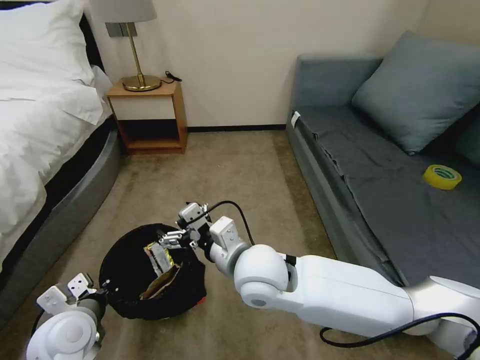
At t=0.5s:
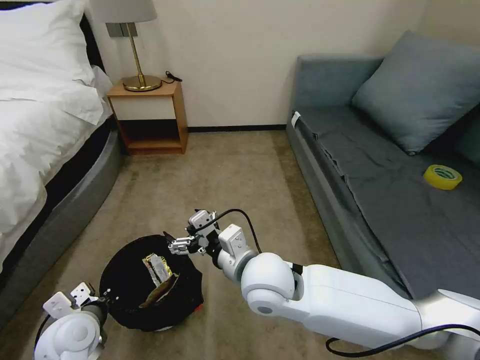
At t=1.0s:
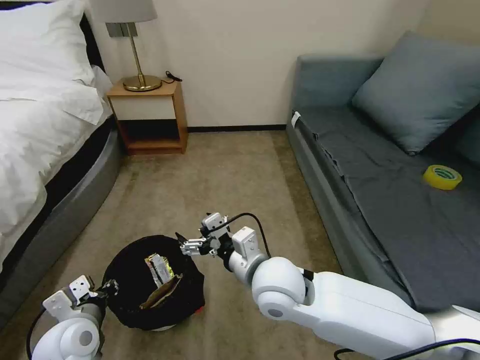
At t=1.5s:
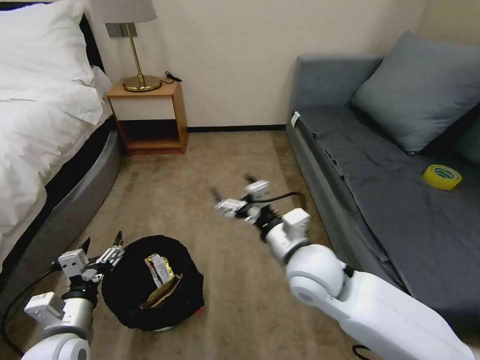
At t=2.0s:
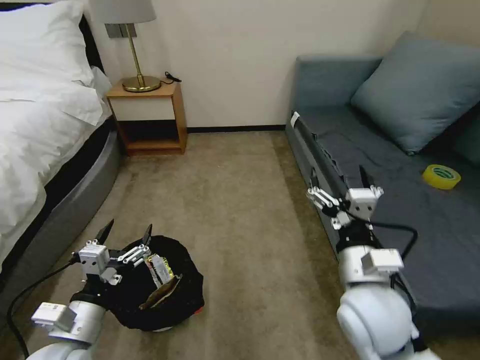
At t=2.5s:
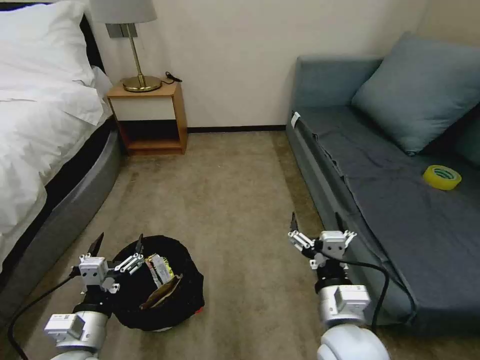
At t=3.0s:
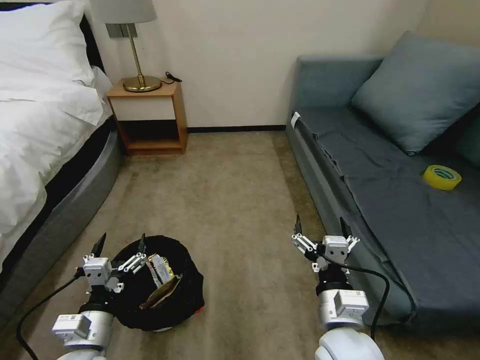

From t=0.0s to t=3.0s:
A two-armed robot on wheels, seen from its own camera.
Task of the whole recording: Pick up the trash bin, then pick up the garbage on the floor and place it into the trash bin.
From t=0.0s to t=1.5s: The left gripper opens; the right gripper is displaced to the right by some 10 cm.
From t=1.5s to t=3.0s: The right gripper shifts approximately 15 cm backward and downward.

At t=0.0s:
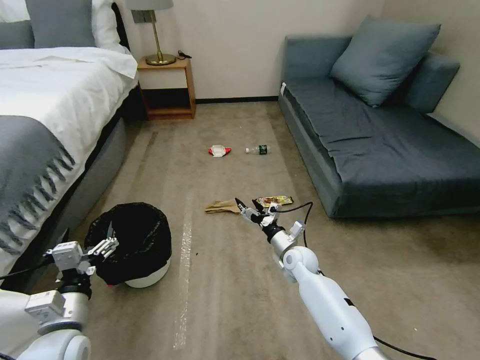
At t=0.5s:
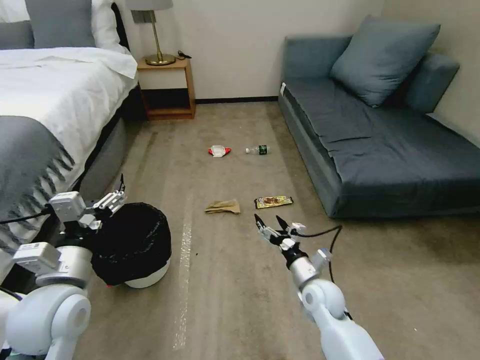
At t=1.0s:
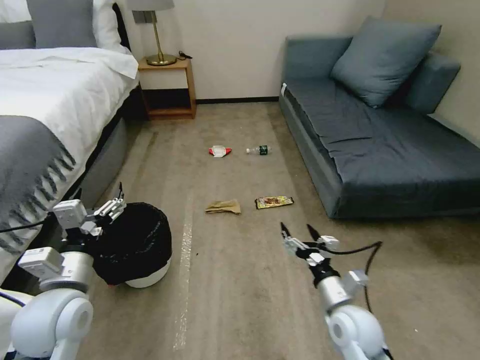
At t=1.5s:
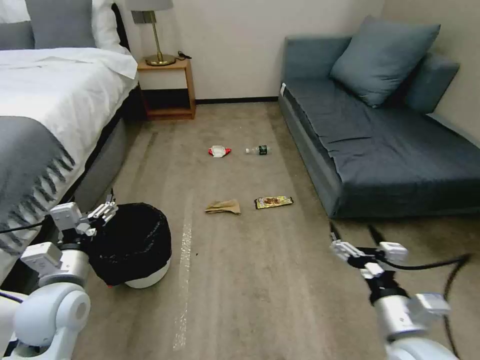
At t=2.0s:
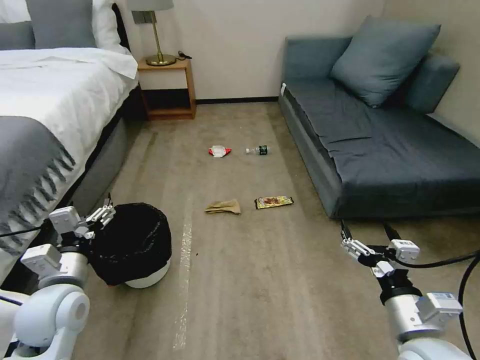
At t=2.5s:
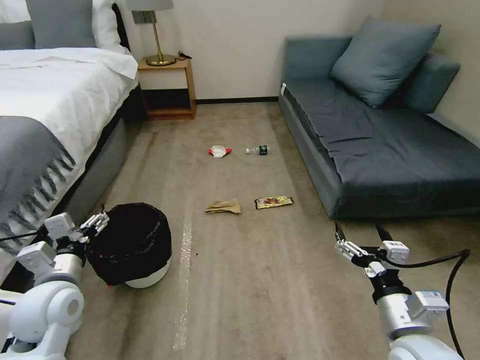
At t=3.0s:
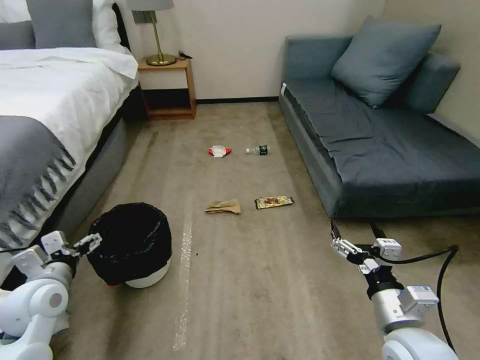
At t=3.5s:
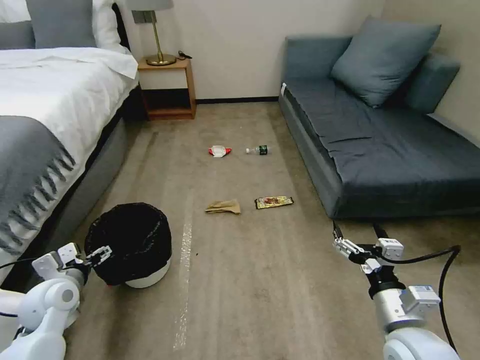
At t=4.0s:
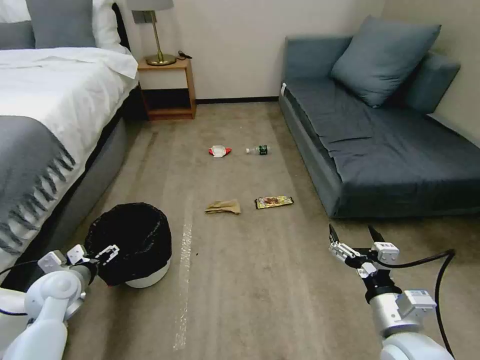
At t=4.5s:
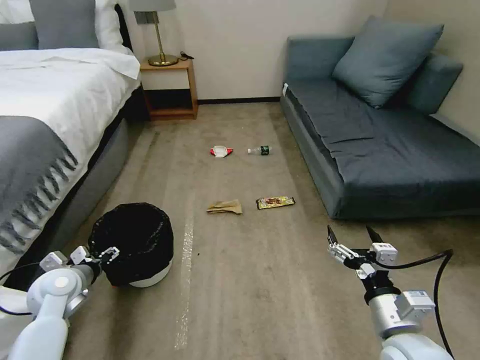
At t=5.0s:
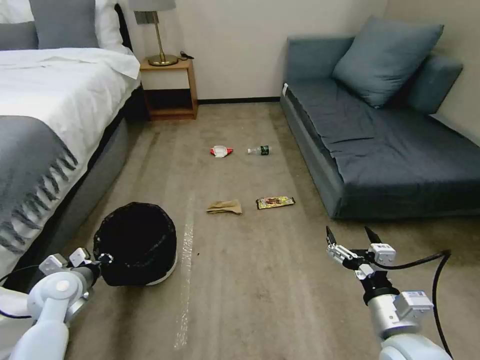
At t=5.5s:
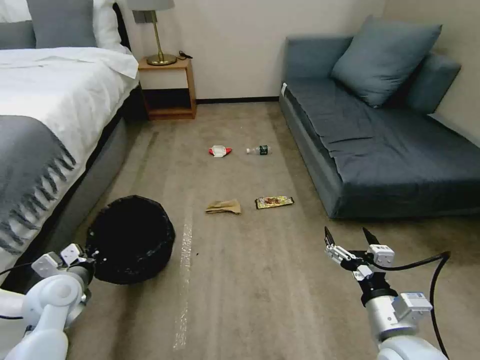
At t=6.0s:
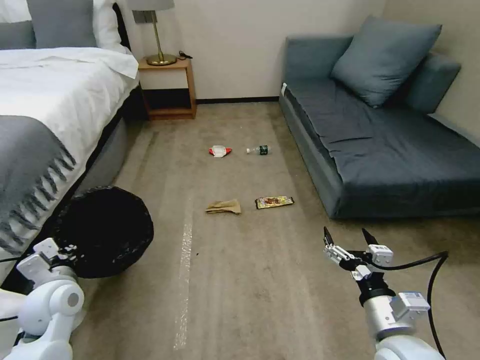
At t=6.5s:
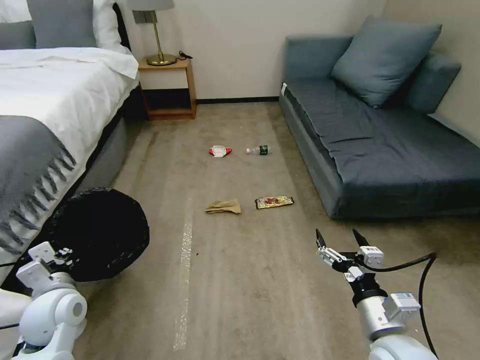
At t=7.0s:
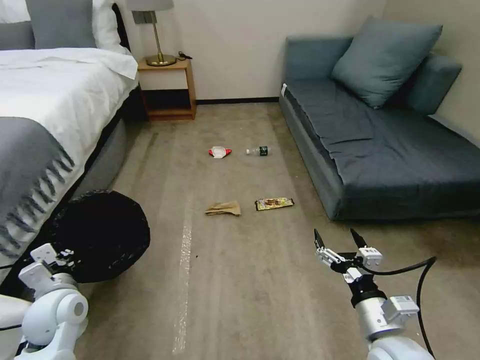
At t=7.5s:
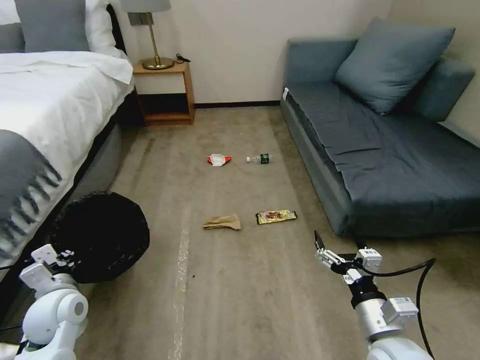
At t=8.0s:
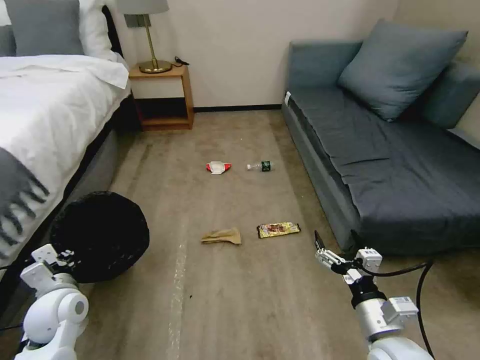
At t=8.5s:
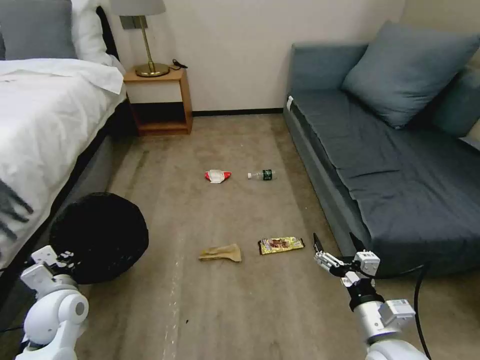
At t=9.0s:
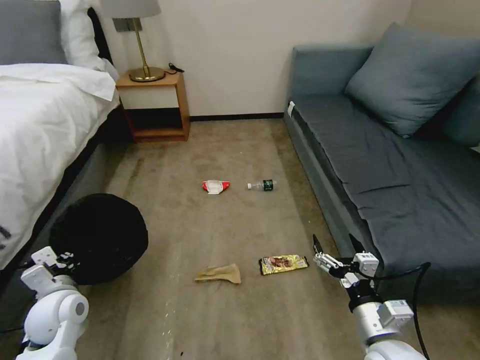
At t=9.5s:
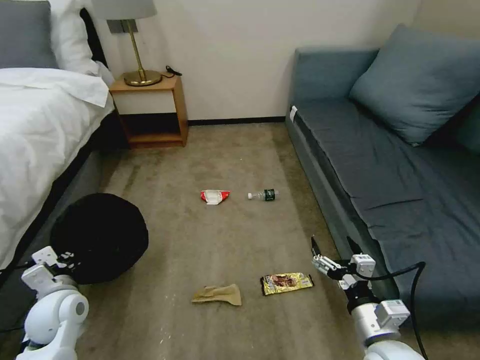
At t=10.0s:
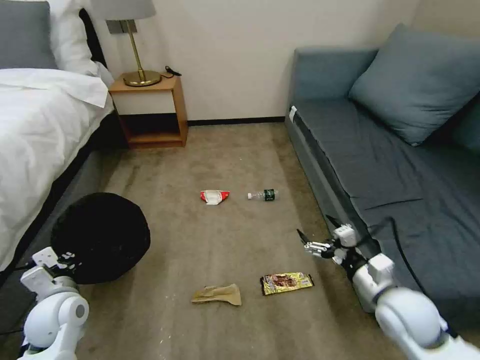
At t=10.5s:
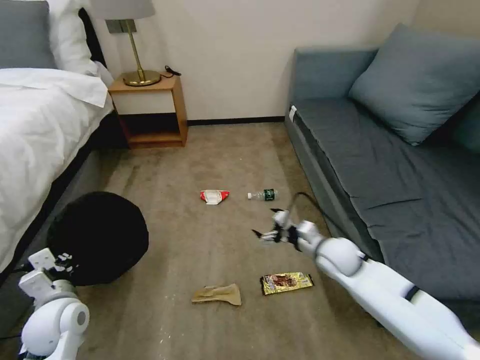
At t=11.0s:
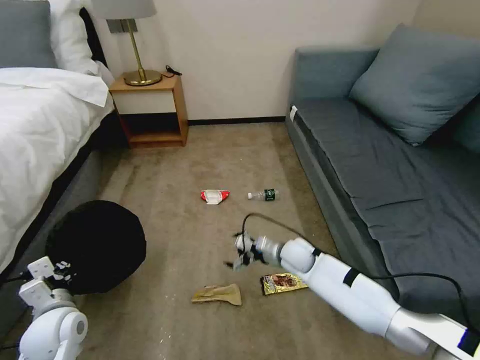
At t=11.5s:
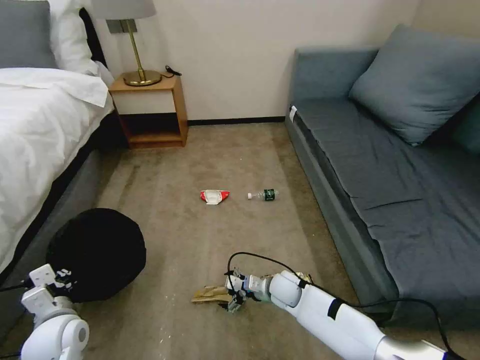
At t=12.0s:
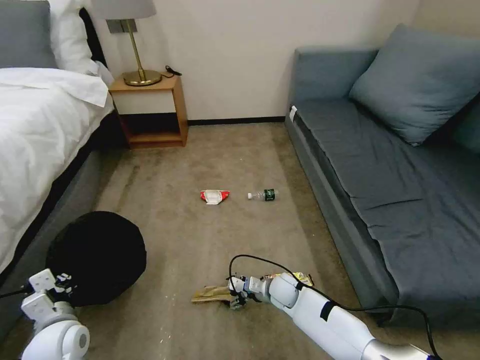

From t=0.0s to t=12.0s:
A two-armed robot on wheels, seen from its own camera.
Task of the whole recording: Pick up the trash bin, then pick up the garbage on the floor and place it into the trash bin.
From t=2.0s to t=4.0s: The left gripper goes approximately 15 cm to the left, downward and forward.
From t=4.0s to t=6.0s: The left gripper changes place by approximately 5 cm, and closes.
From t=8.0s to t=10.0s: The right gripper travels forward by about 5 cm.
From t=10.0s to t=12.0s: The left gripper shifts by about 5 cm. The right gripper moves downward, to the left and forward, approximately 30 cm.

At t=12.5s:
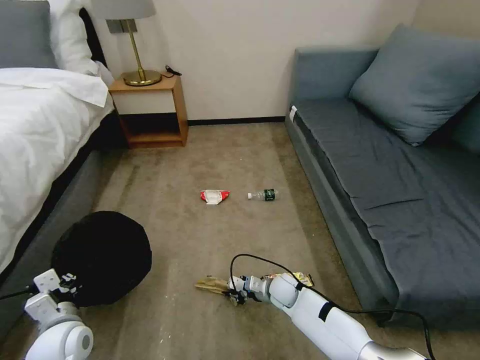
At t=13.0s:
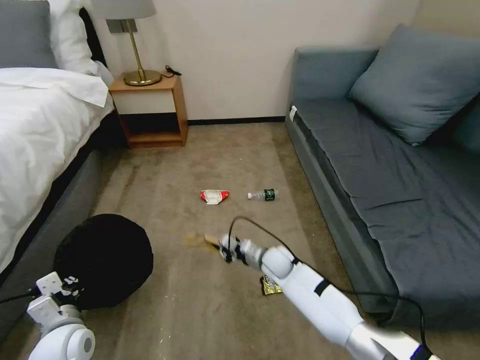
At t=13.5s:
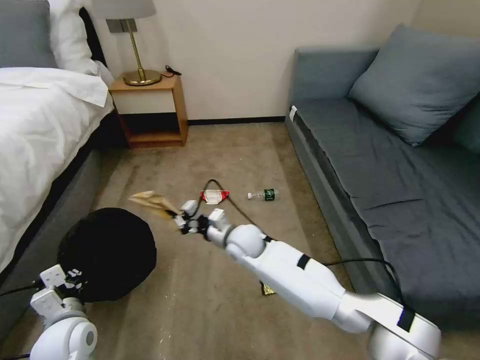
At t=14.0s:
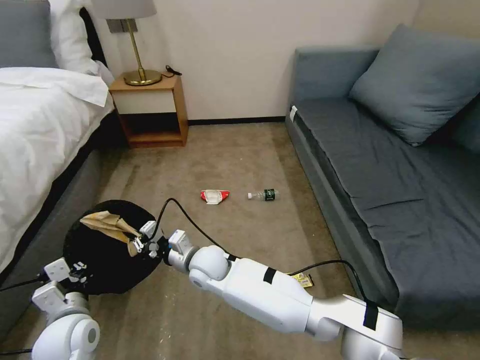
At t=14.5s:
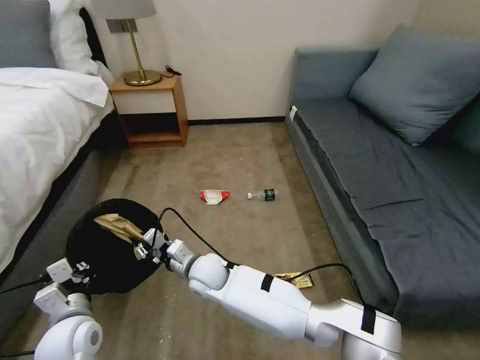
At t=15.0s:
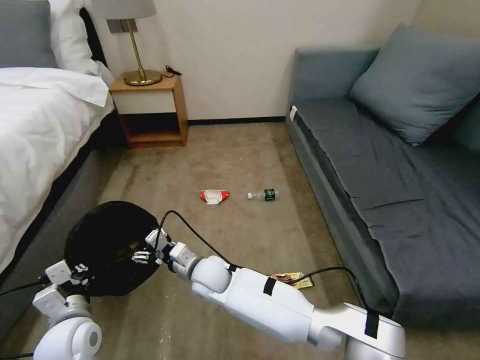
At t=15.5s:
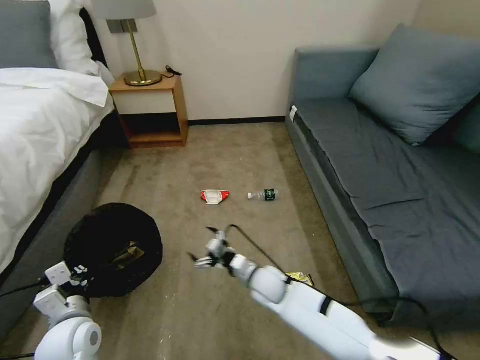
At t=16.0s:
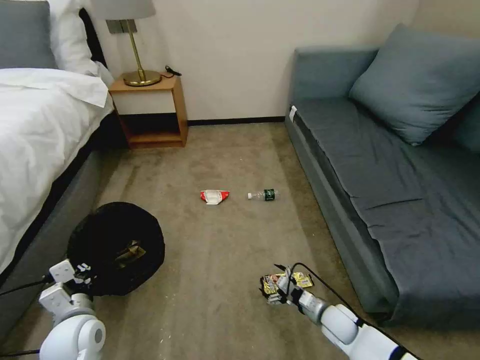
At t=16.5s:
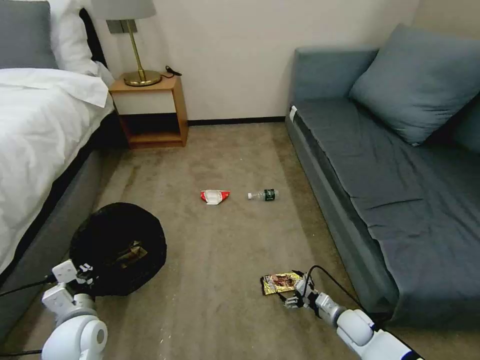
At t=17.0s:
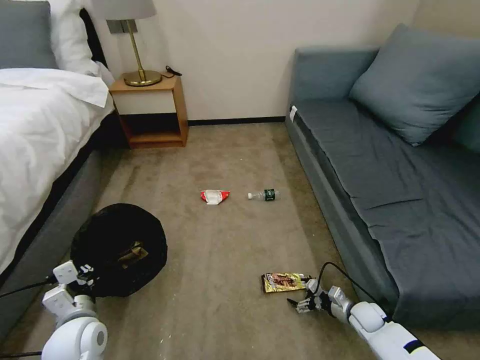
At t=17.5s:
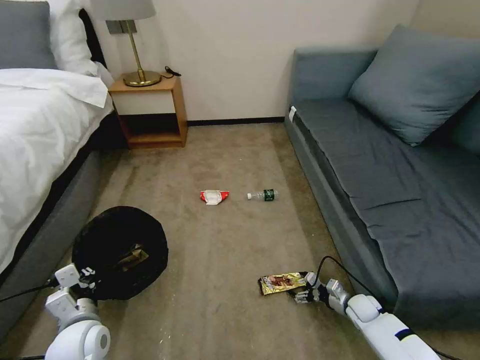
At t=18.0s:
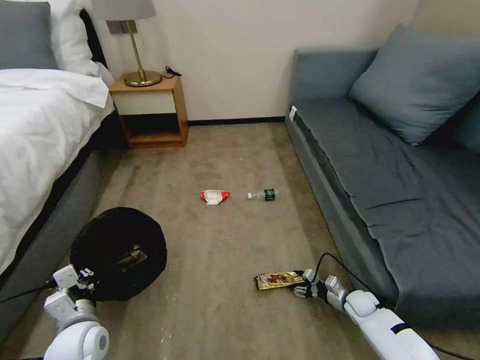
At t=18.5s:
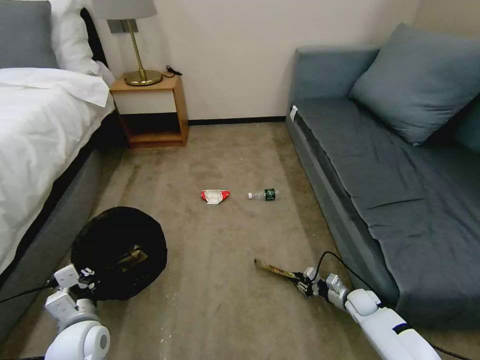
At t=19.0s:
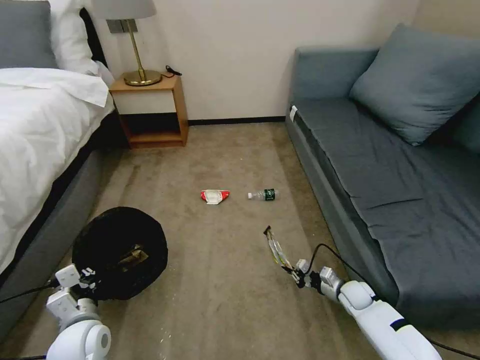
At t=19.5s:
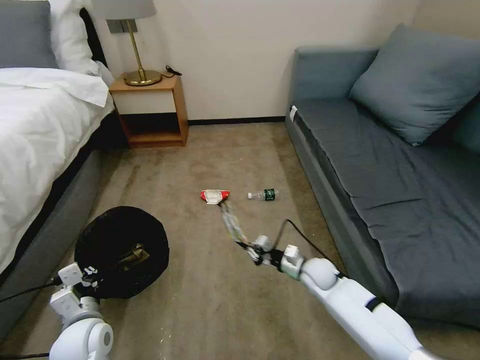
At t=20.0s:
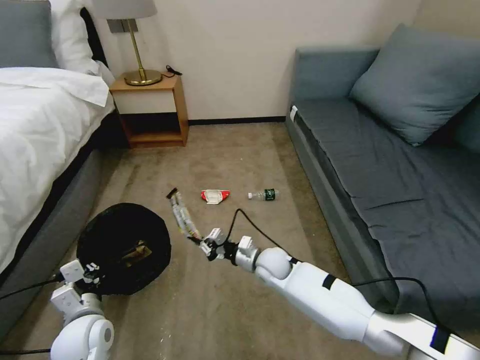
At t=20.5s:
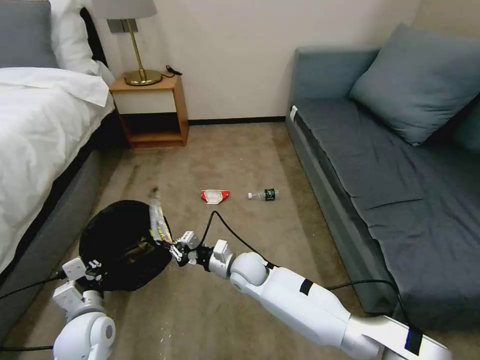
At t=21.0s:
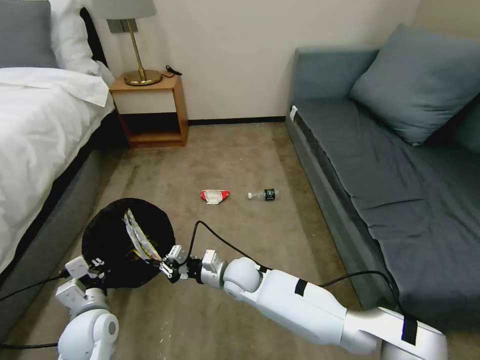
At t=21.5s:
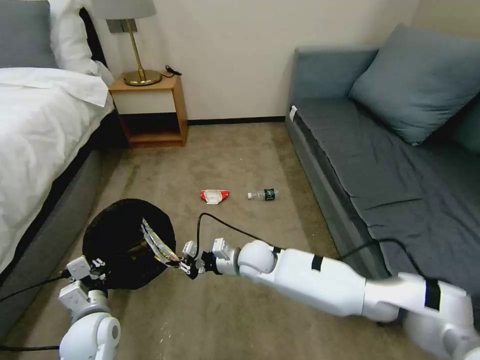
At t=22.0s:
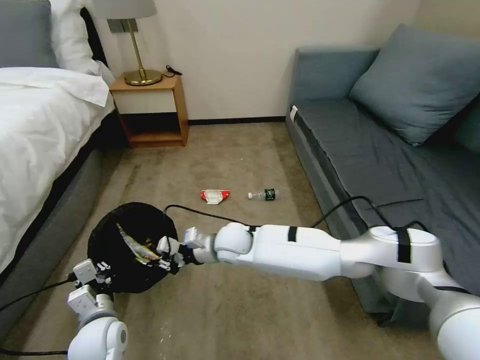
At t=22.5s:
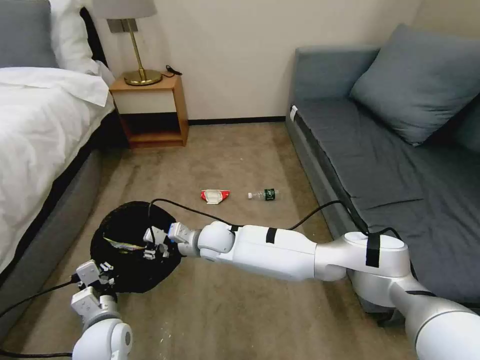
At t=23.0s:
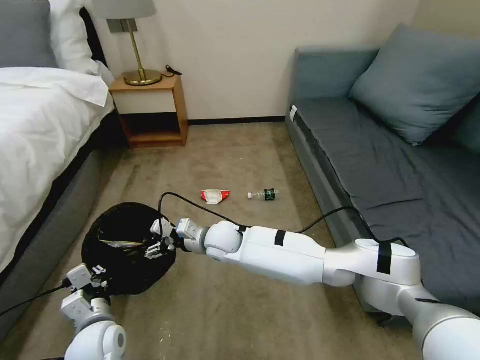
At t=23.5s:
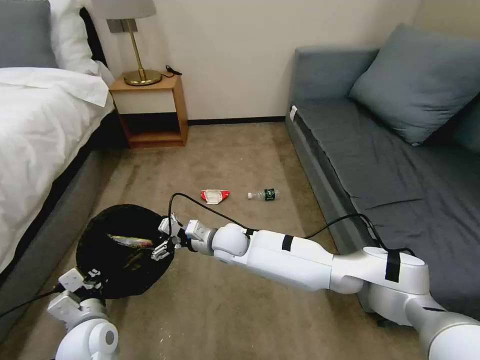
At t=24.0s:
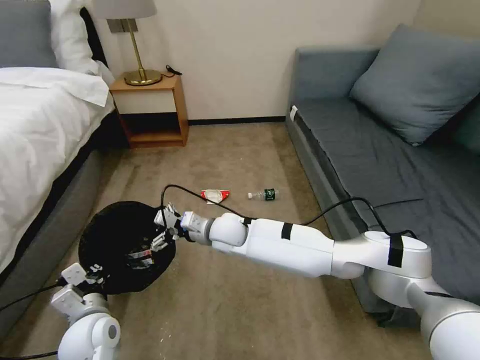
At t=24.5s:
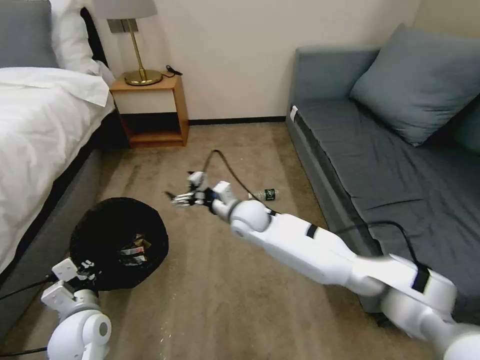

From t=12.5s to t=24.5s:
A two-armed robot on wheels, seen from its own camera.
Task of the whole recording: Pick up the trash bin, then pick up the garbage on the floor and place it into the trash bin.
From t=12.5s to t=14.5s: The right gripper heads to the left and upward, covering approximately 25 cm.
From t=14.5s to t=16.5s: The right gripper goes about 40 cm to the right and downward, and opens up.
From t=16.5s to t=18.5s: The right gripper moves forward and to the right, about 10 cm, and closes up.
From t=18.5s to t=20.5s: The right gripper is displaced to the left and upward by about 40 cm.
From t=20.5s to t=22.5s: The right gripper goes approximately 10 cm to the left and upward.
From t=22.5s to t=24.5s: The right gripper shifts some 10 cm to the right, and opens up.
